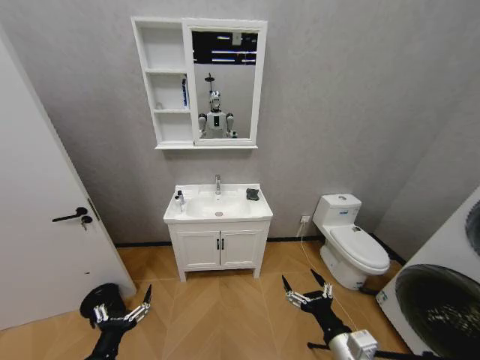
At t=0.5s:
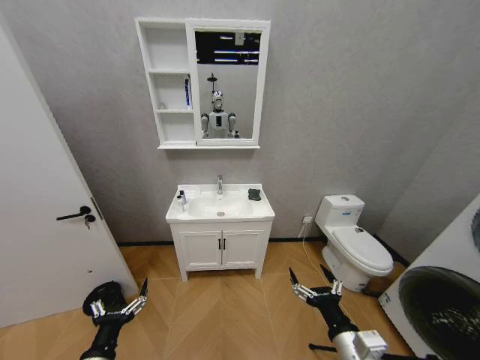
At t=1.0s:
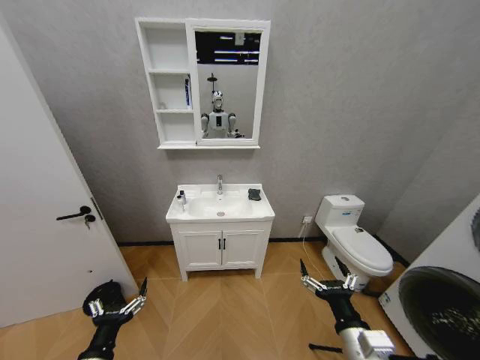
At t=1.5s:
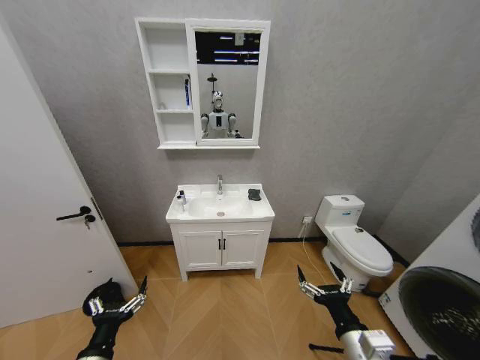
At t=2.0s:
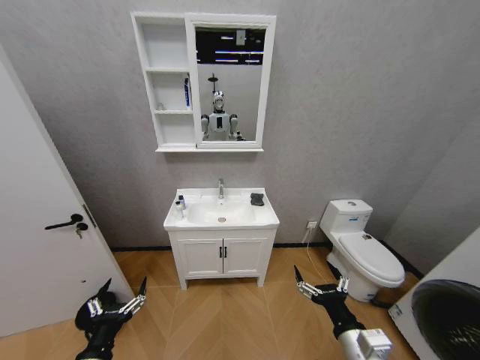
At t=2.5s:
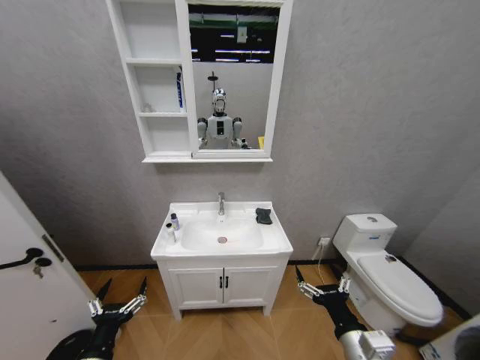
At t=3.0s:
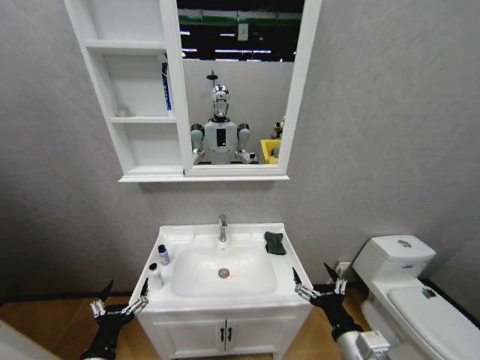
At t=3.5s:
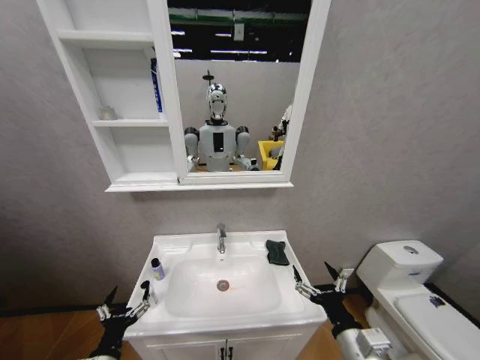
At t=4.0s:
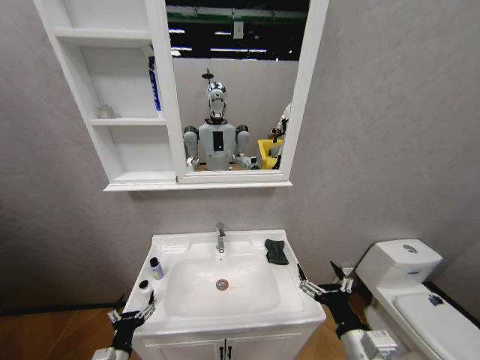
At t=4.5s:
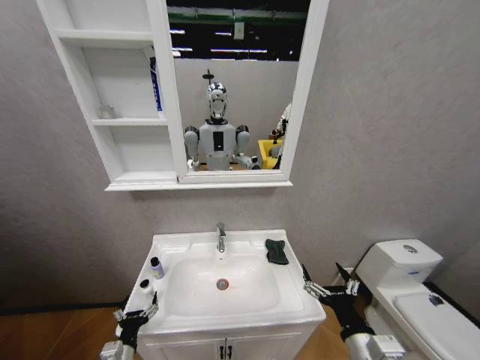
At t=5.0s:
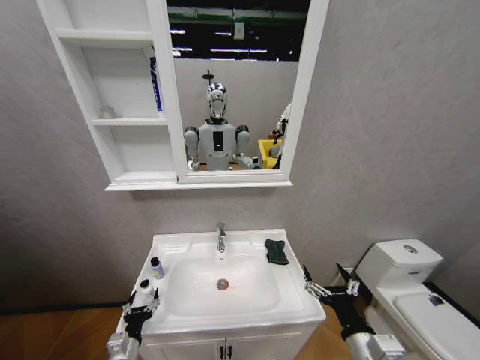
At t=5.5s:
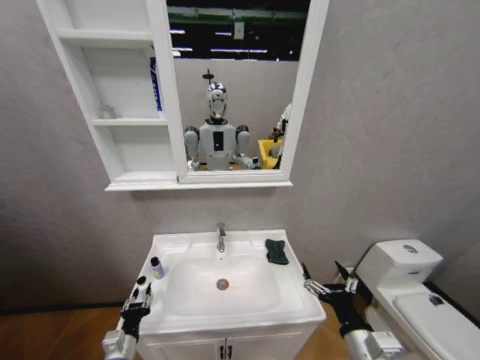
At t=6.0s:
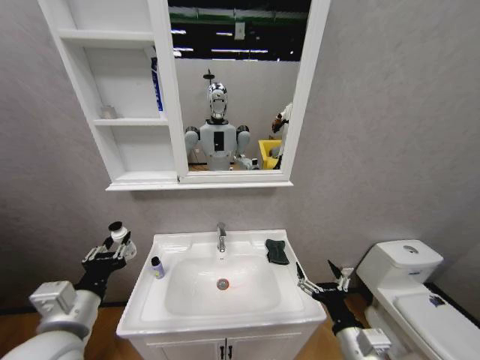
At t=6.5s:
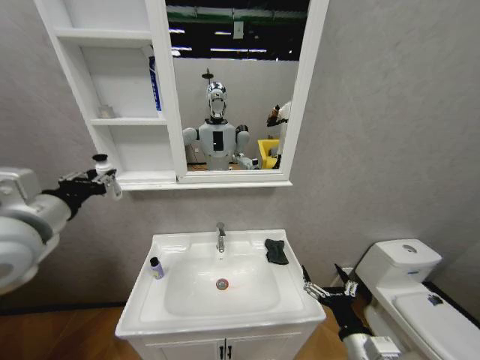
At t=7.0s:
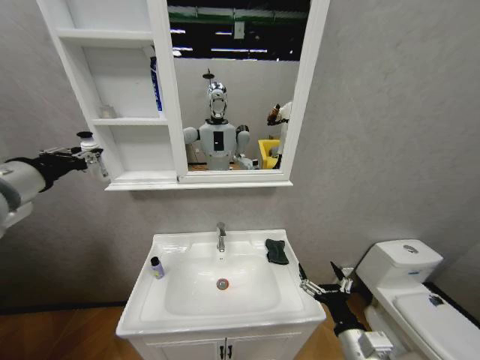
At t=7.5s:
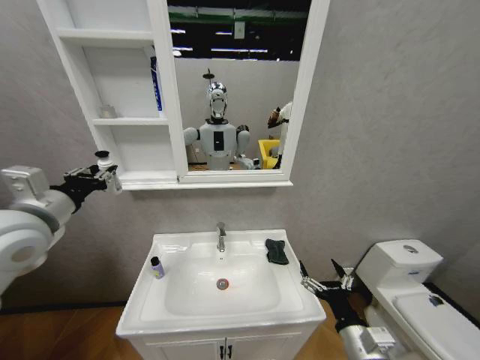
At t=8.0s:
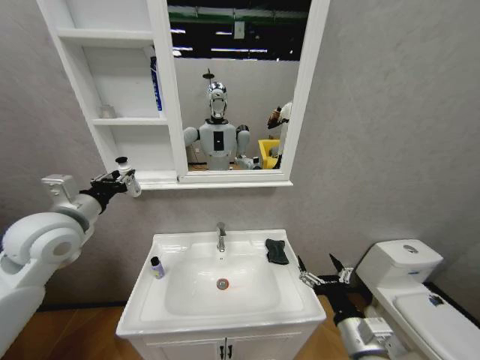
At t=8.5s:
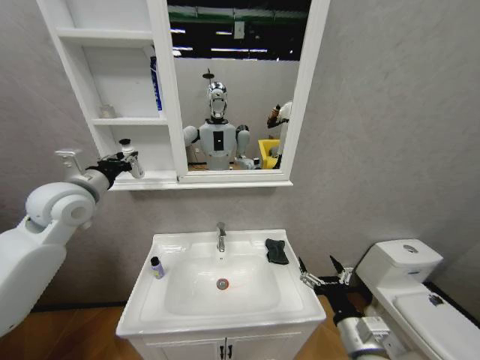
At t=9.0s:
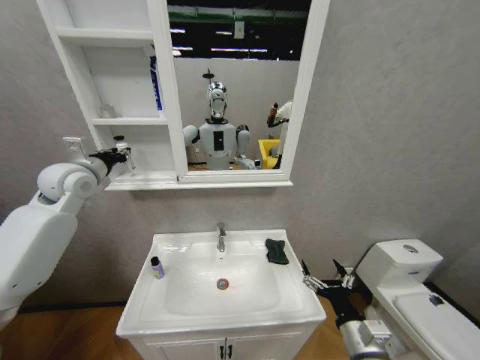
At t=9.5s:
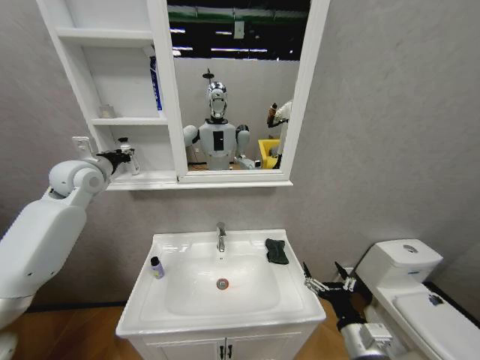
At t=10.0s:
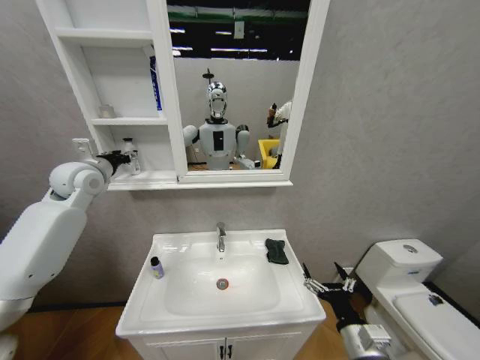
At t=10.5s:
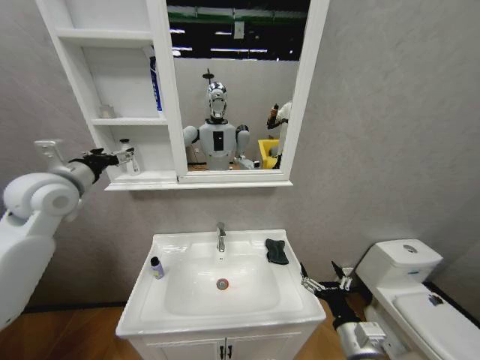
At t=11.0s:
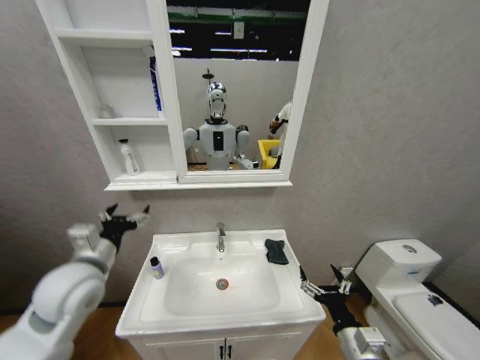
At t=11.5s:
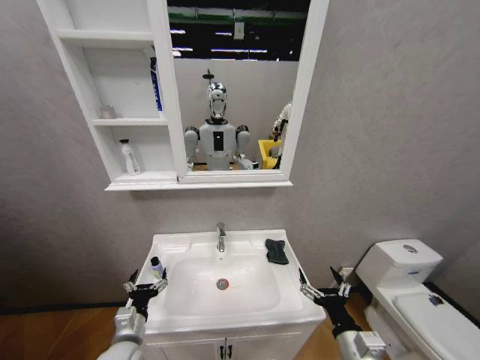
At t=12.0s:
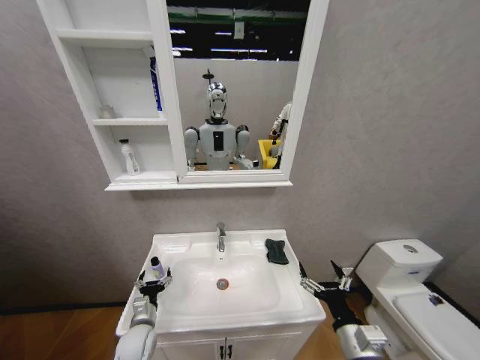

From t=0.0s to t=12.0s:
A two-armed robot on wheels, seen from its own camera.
Task of the whole recording: Move facial cleanser and shampoo from washbasin to cabinet, then wipe washbasin with towel.
From t=2.0s to t=4.0s: The left gripper is displaced downward by some 10 cm.
From t=4.0s to t=6.0s: The left gripper shifts about 25 cm upward, and closes.
From t=6.0s to t=8.0s: The left gripper shifts roughly 20 cm forward and upward.
From t=8.0s to t=10.0s: The left gripper moves forward, some 15 cm, and opens.
From t=10.0s to t=12.0s: The left gripper is displaced downward by about 40 cm, and opens.

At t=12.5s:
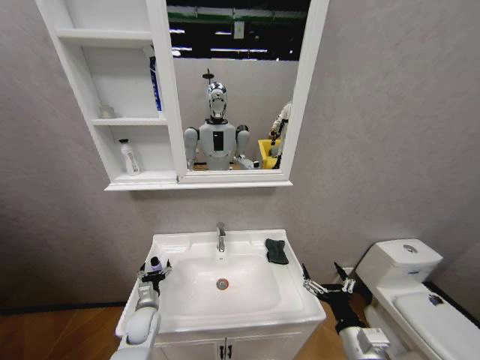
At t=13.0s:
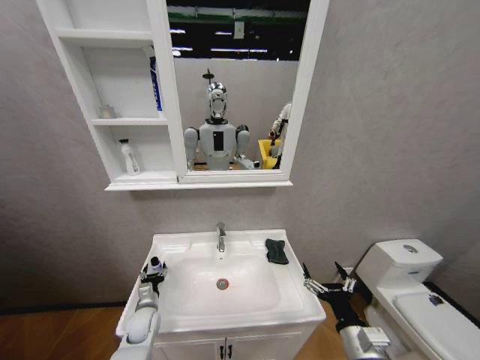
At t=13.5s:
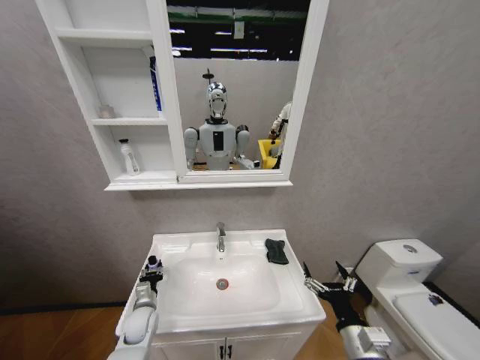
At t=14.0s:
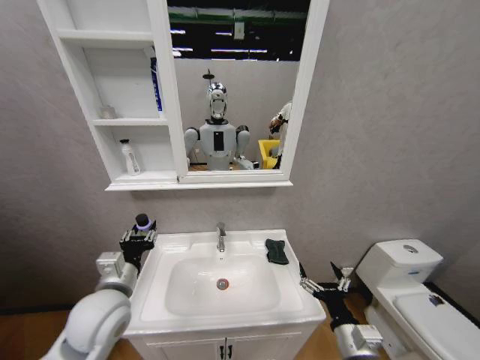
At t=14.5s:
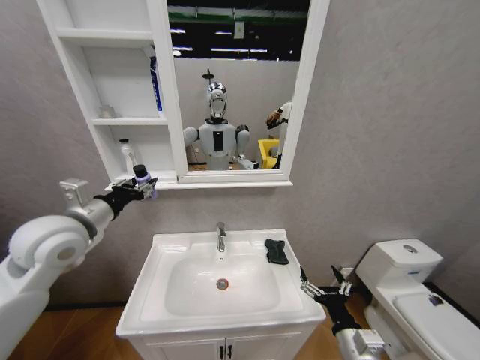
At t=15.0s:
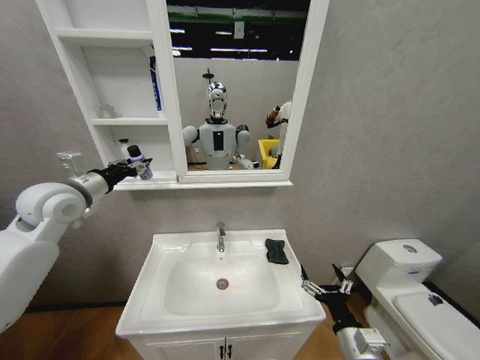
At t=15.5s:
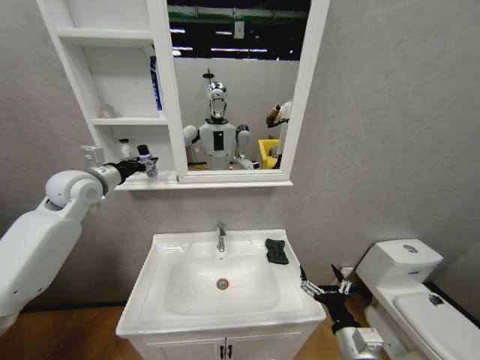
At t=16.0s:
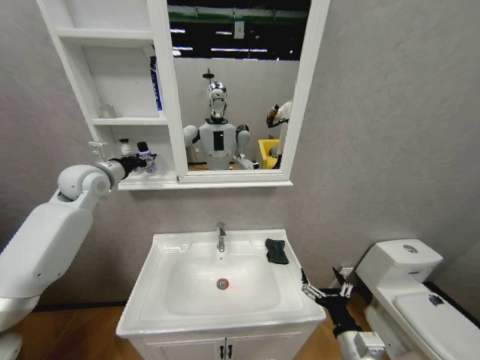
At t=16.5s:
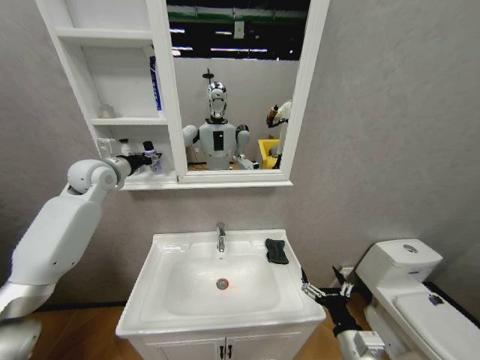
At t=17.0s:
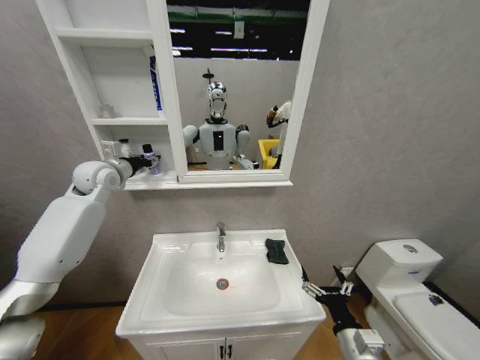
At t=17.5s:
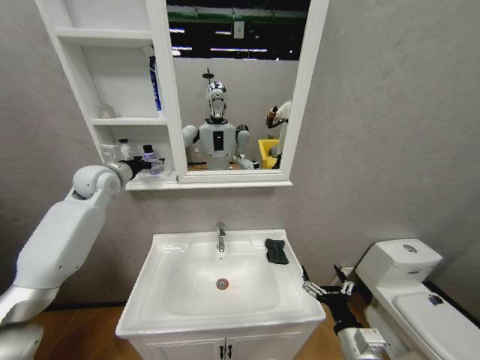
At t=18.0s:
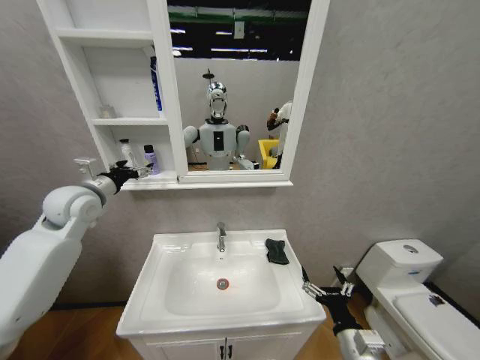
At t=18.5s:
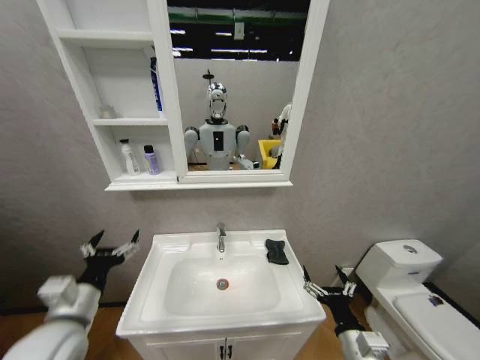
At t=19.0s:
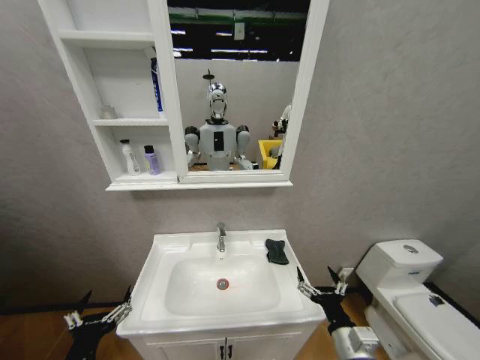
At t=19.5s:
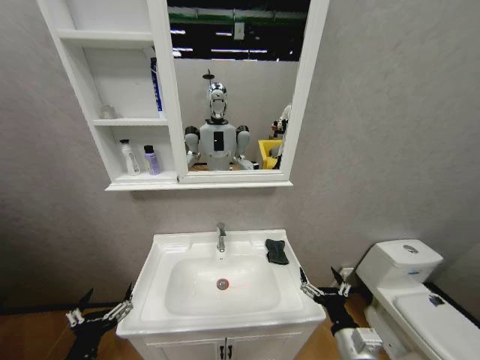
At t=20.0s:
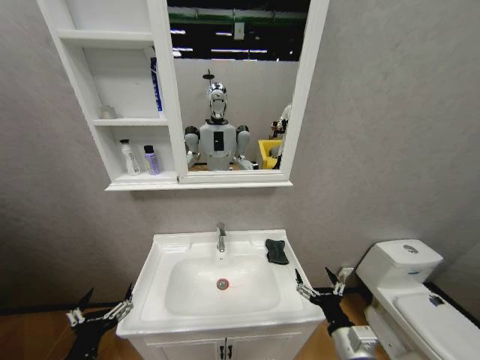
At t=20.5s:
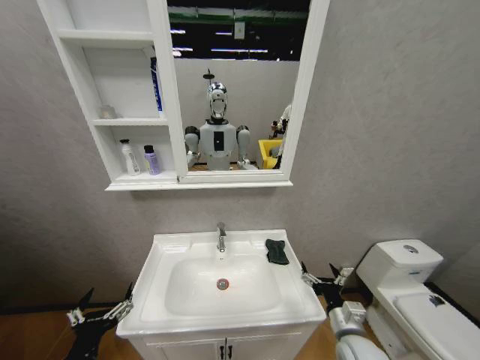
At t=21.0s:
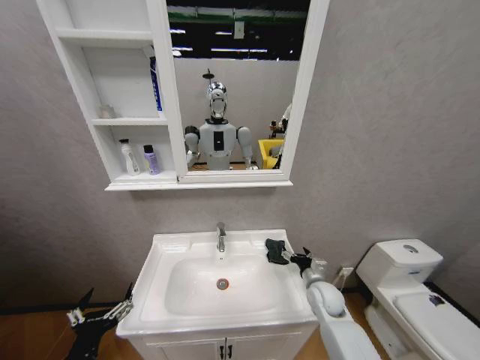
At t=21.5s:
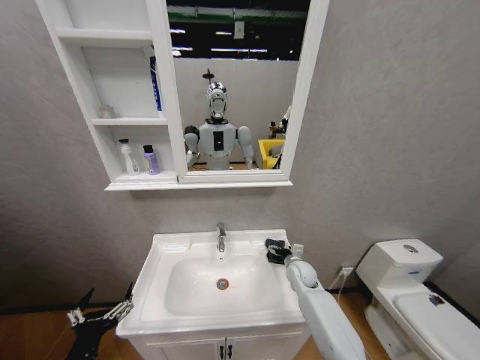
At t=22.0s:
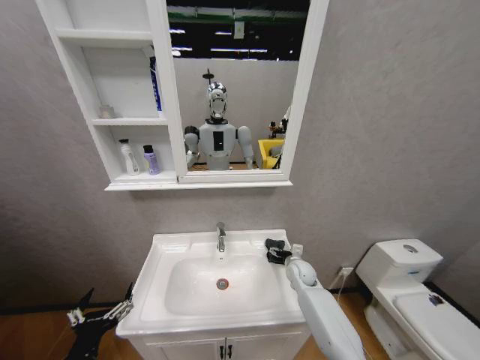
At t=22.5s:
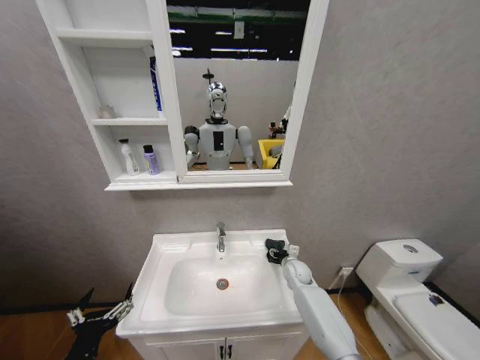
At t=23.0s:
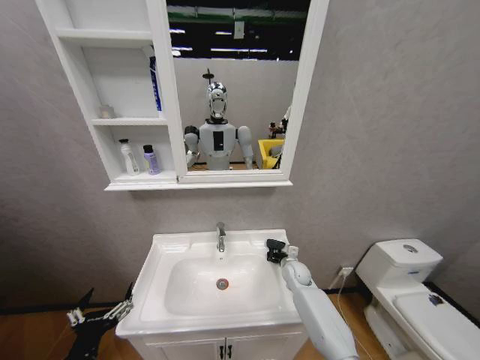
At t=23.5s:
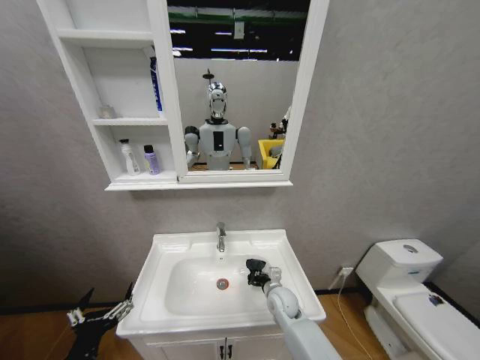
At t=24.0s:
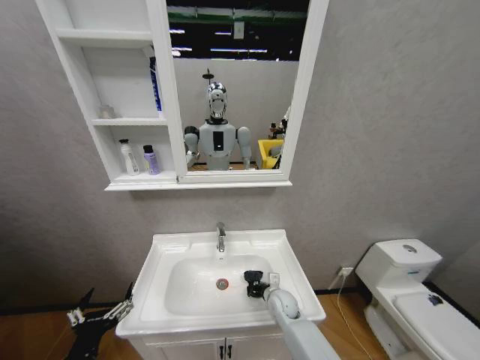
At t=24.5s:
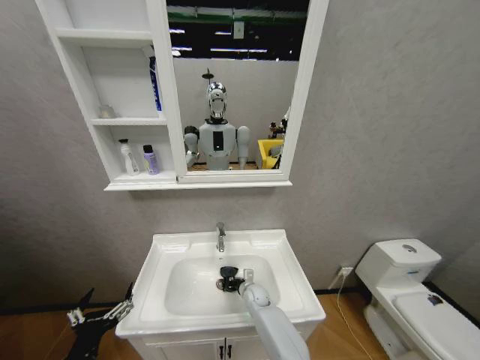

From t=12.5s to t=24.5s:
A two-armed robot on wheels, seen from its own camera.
Task of the whole recording: Move facial cleanser and shampoo from washbasin to cabinet, then wipe washbasin with towel.
From t=12.5s to t=14.5s: The left gripper goes approximately 40 cm upward, and closes up.
From t=14.5s to t=16.5s: The left gripper shifts roughly 15 cm forward.
From t=16.5s to t=18.5s: The left gripper is displaced backward and downward by about 35 cm, and opens up.
From t=18.5s to t=20.5s: The right gripper shifts roughly 5 cm forward; the left gripper heads backward and downward, covering about 15 cm.
From t=20.5s to t=22.5s: The right gripper heads forward, covering roughly 25 cm.
From t=22.5s to t=24.5s: The right gripper travels to the left and downward by some 20 cm, and closes up.

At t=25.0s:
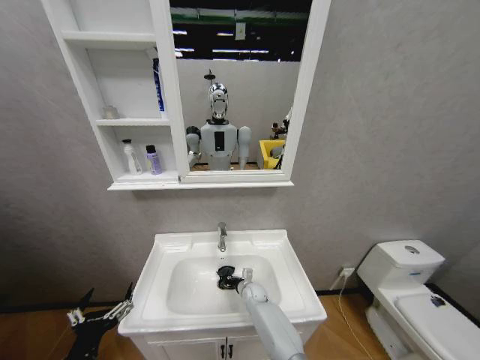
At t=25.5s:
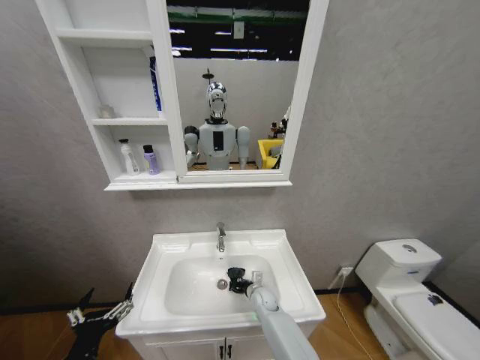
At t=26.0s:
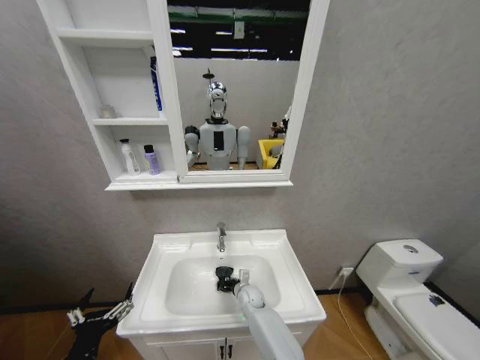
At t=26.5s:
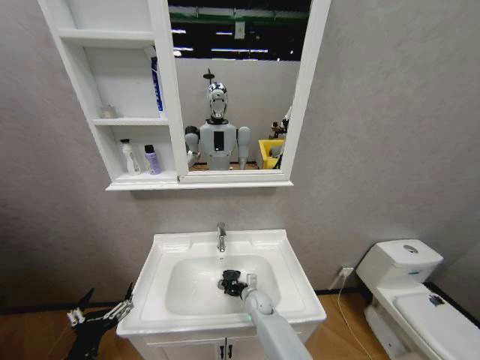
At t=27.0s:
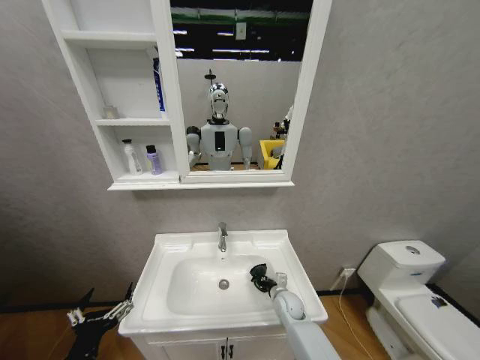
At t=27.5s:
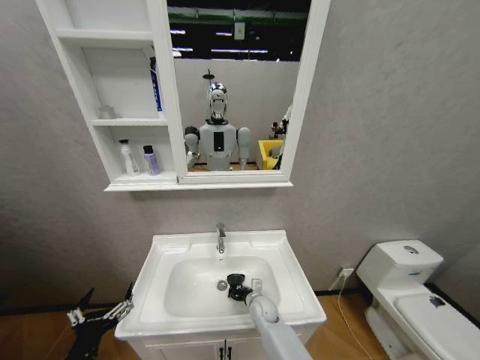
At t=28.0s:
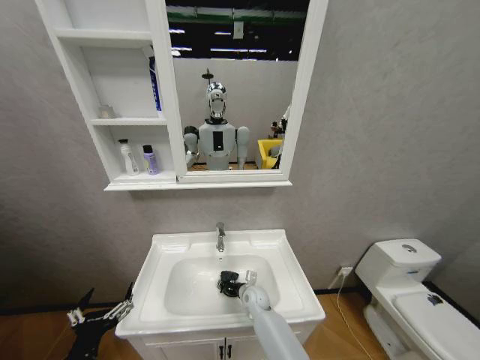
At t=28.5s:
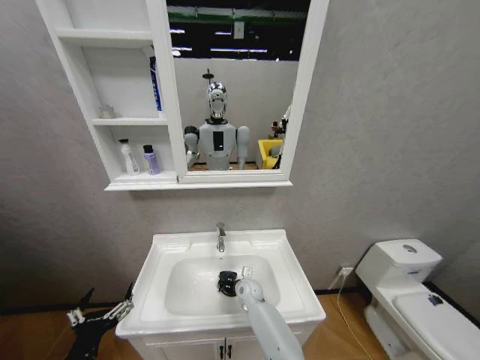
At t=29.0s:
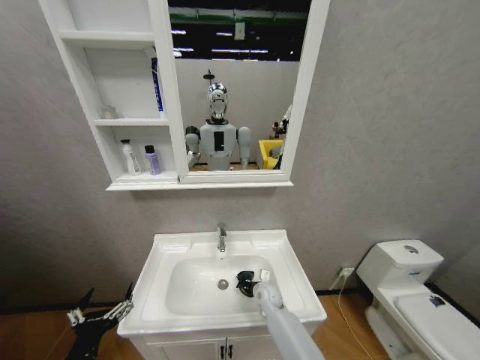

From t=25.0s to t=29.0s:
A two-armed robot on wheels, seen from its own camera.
Task of the whole recording: Move facial cleanser and shampoo from washbasin to cabinet, then wipe washbasin with towel.
From t=25.0s to t=27.0s: The right gripper travels to the right and backward by roughly 10 cm.
From t=27.0s to t=29.0s: The right gripper is displaced to the left by some 5 cm.
